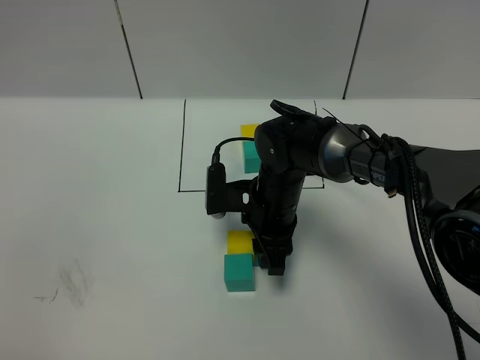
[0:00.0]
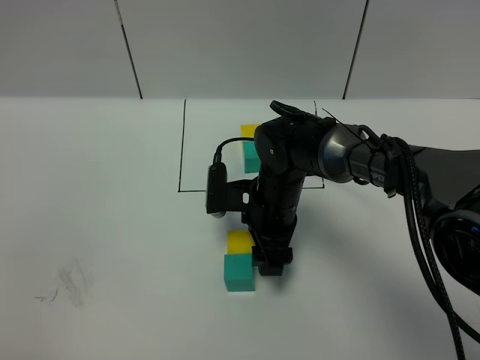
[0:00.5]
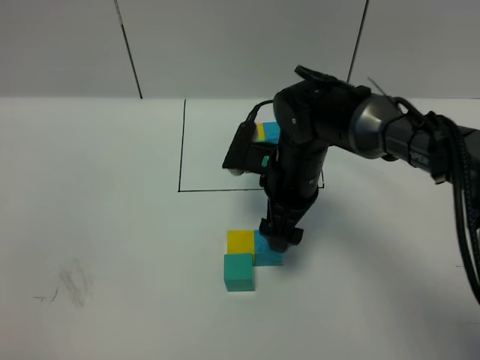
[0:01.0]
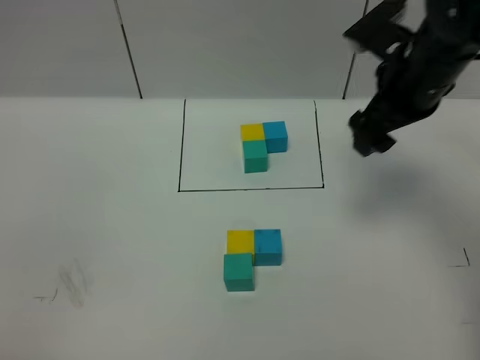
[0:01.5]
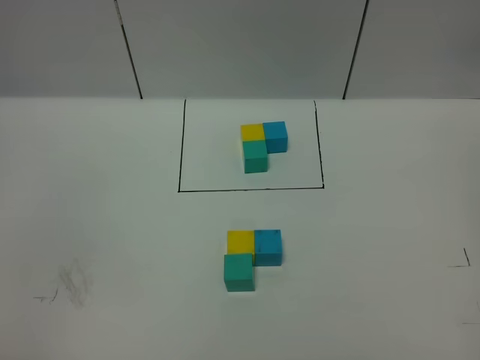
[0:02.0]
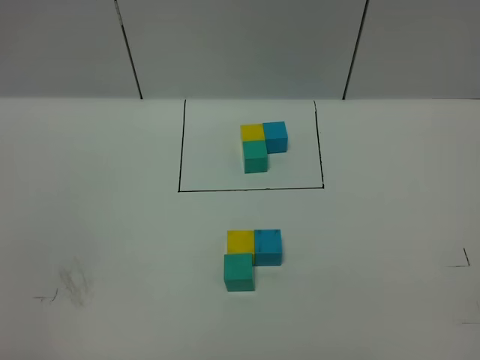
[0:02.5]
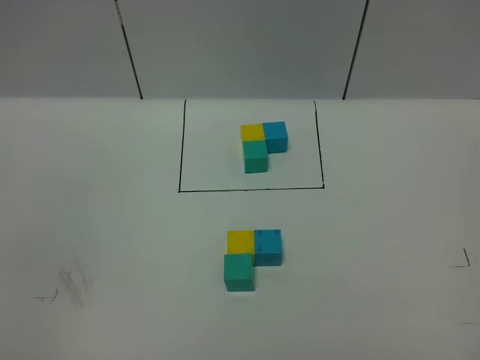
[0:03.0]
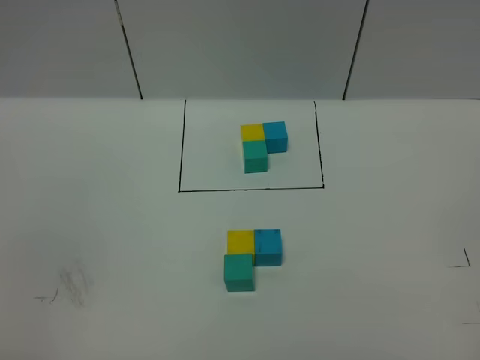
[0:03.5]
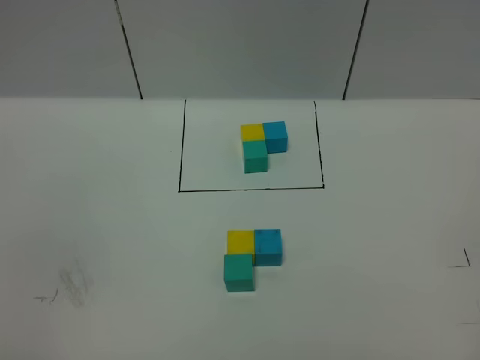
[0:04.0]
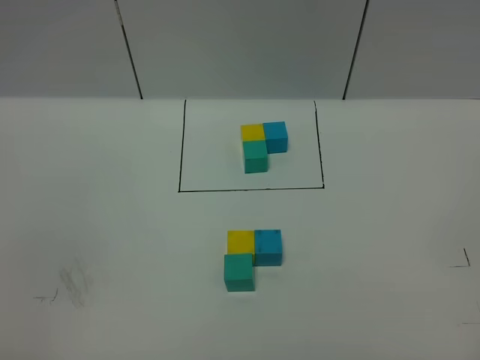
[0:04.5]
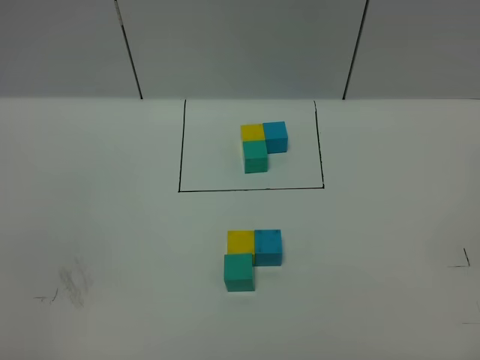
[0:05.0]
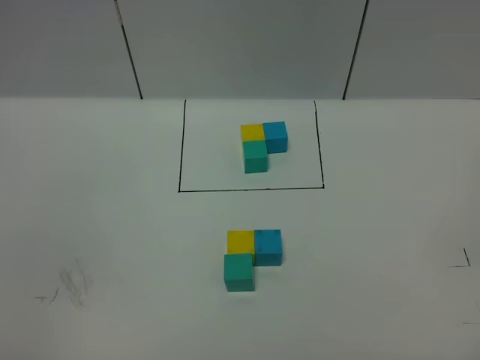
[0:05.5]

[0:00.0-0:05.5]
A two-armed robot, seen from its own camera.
Task of the whole recording: According to the building block template in front, assemble the scattered blocks together.
0:00.0 to 0:02.0: The right gripper shifts about 50 cm upward and to the right, and opens.

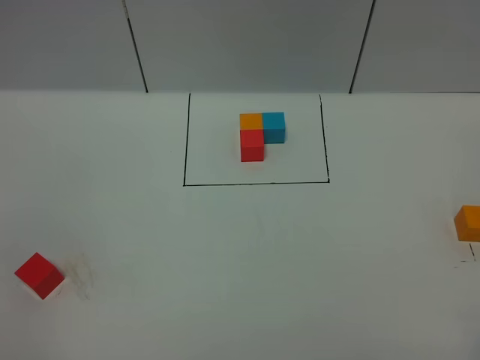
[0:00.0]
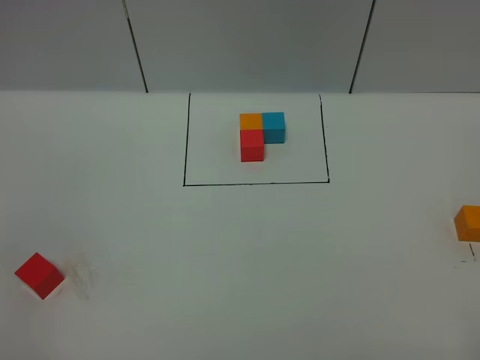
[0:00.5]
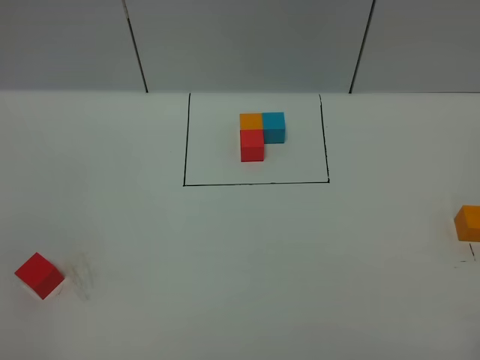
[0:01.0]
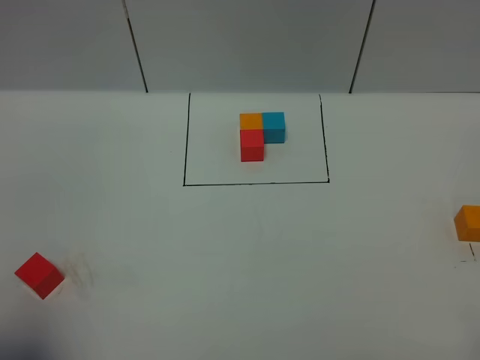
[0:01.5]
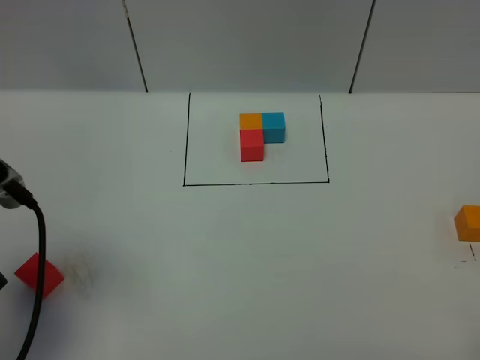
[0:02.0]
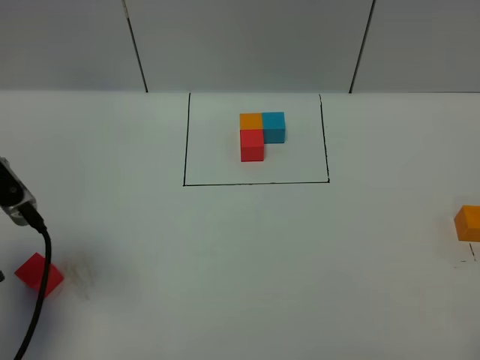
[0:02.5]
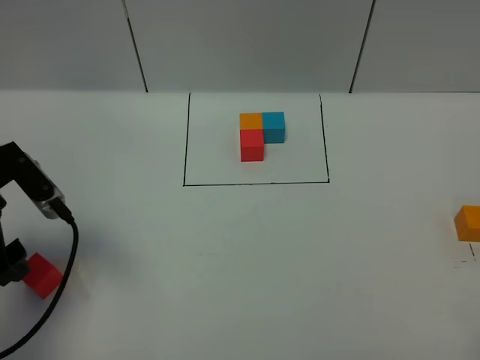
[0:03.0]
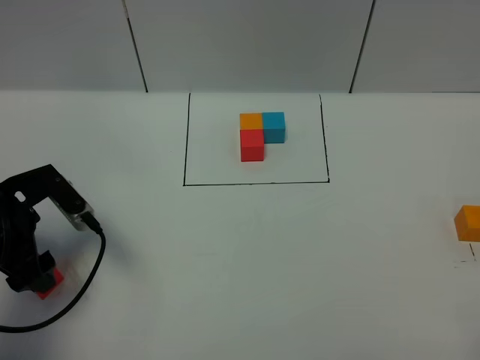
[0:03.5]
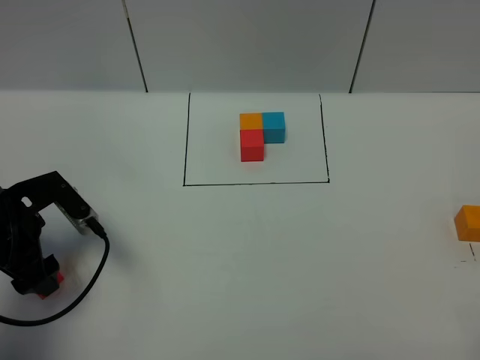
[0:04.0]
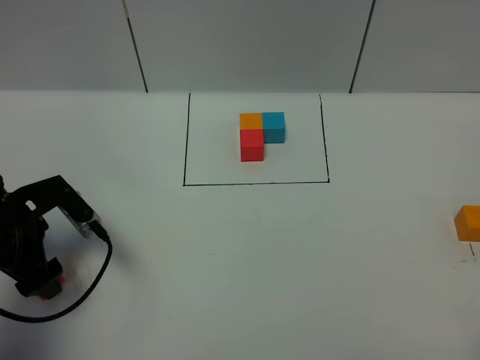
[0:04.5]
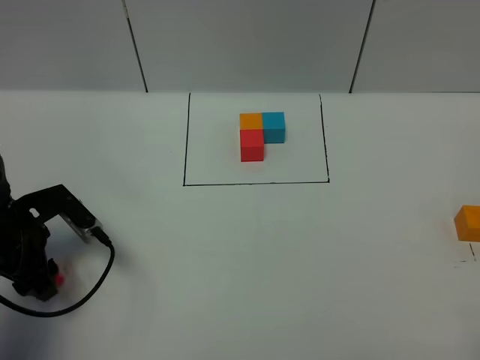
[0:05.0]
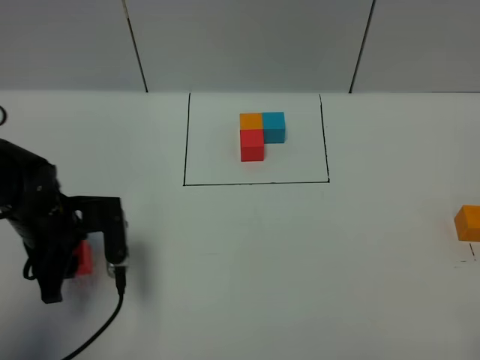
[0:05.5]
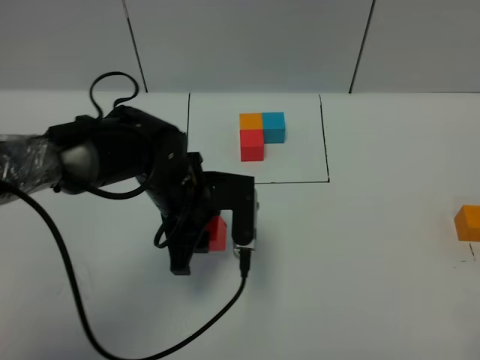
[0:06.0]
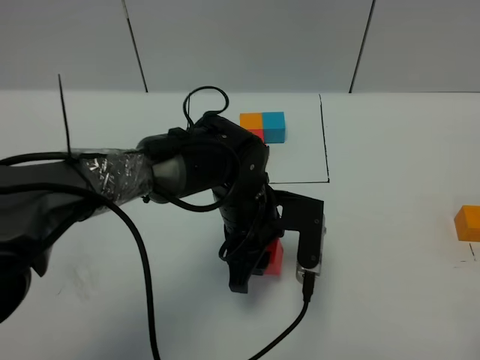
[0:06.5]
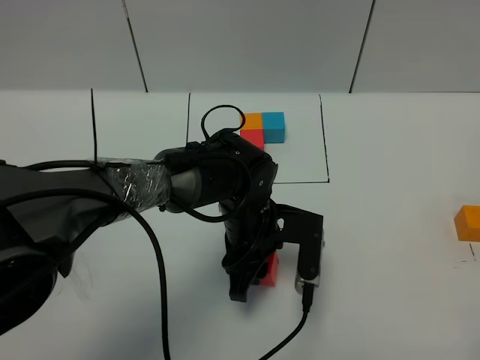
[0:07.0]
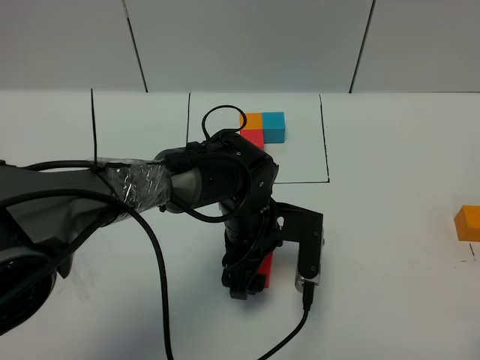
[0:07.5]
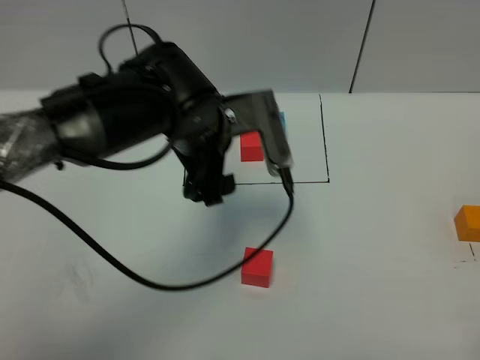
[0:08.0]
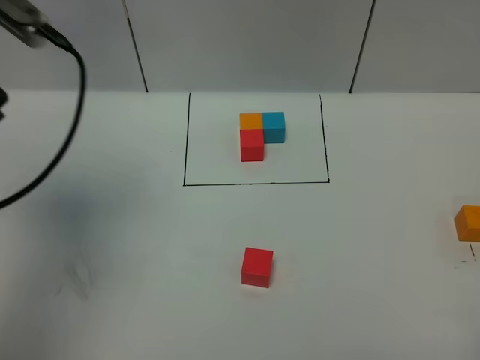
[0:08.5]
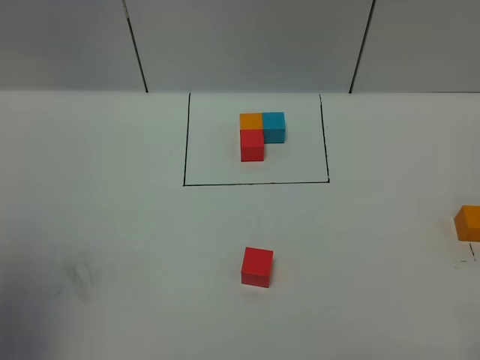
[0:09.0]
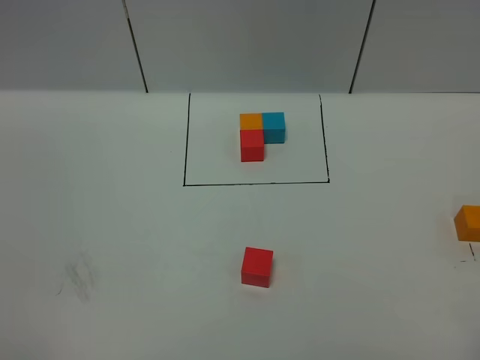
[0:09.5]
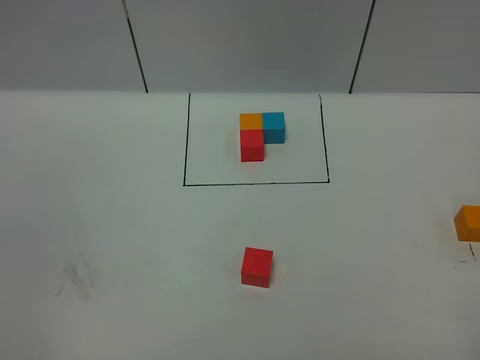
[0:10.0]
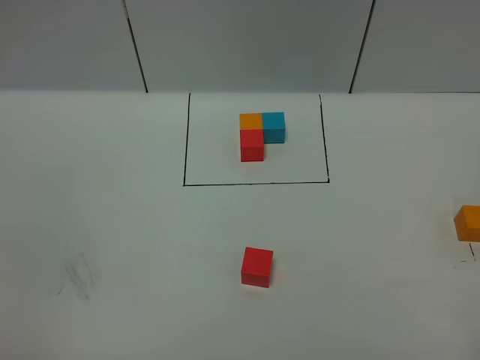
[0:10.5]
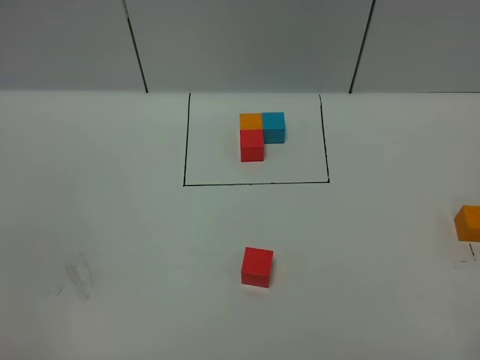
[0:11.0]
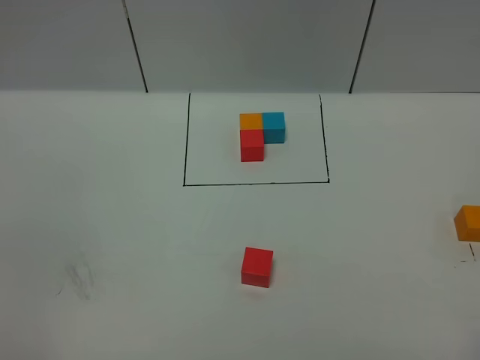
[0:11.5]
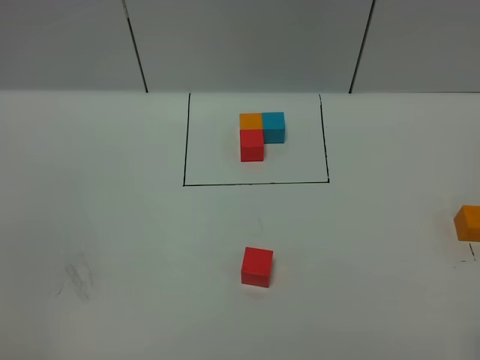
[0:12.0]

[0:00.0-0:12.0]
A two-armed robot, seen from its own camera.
Task of the whole recording: According to the building block template in front, assemble the scattered blocks together.
Step, 0:01.5 to 0:07.5: Put the red cube in the center of the table.
0:00.0 to 0:02.0: The left gripper shifts approximately 20 cm forward.
0:02.0 to 0:04.0: The left gripper goes approximately 15 cm downward and forward.
0:04.0 to 0:06.0: The left gripper moves to the right, about 20 cm, and closes its fingers.
0:06.0 to 0:08.0: The left gripper heads upward, covering about 10 cm, and opens up.
0:08.0 to 0:10.0: The left gripper heads backward and to the left, covering roughly 40 cm.

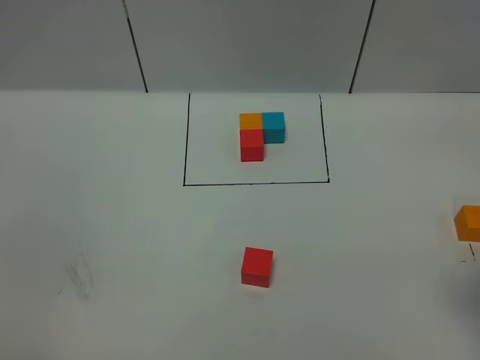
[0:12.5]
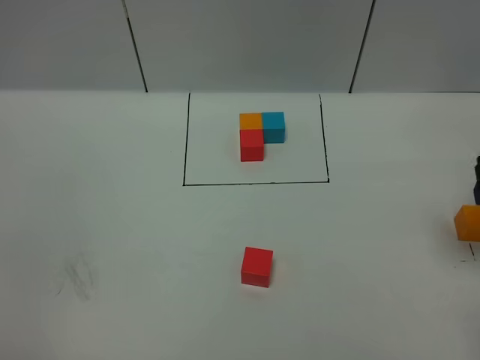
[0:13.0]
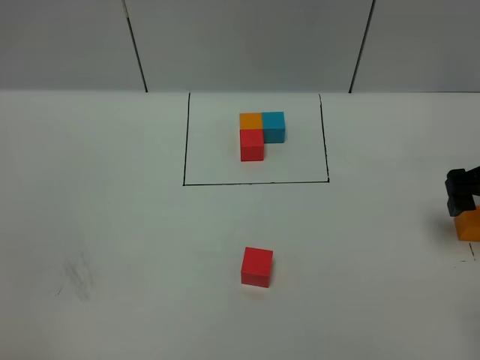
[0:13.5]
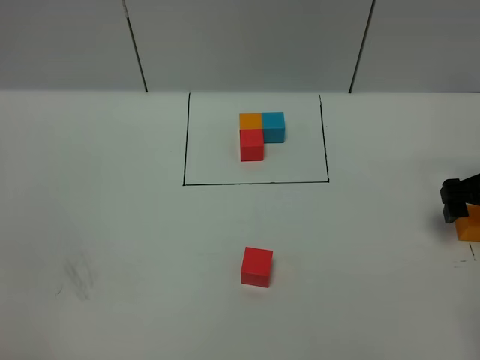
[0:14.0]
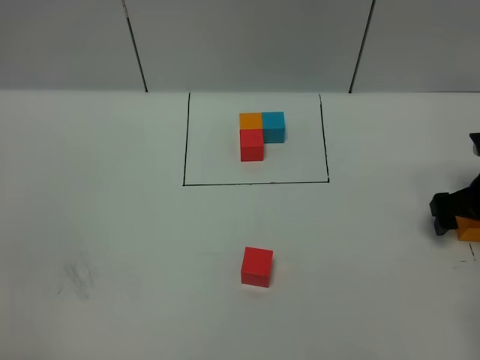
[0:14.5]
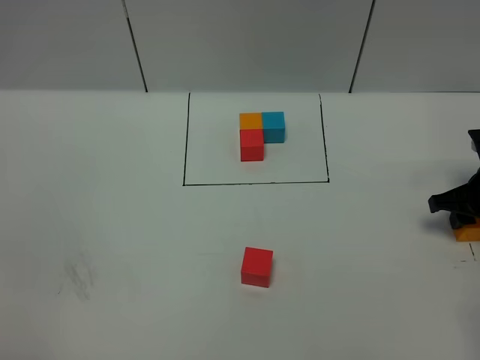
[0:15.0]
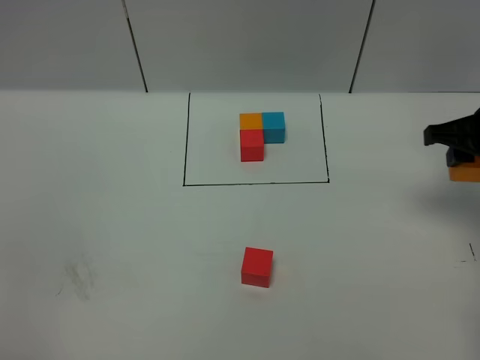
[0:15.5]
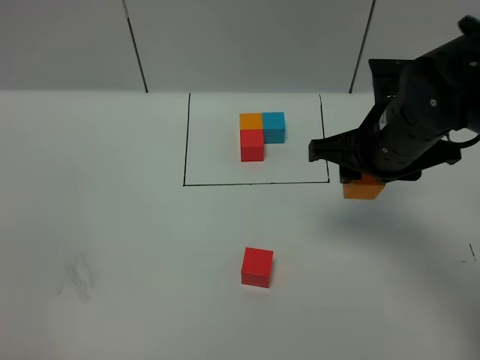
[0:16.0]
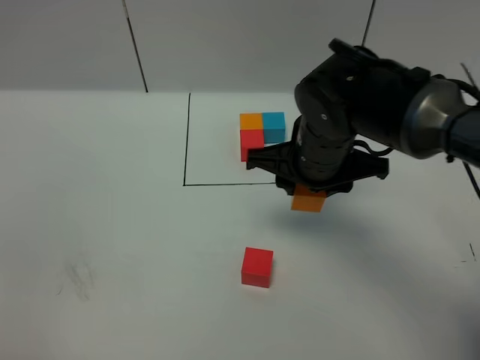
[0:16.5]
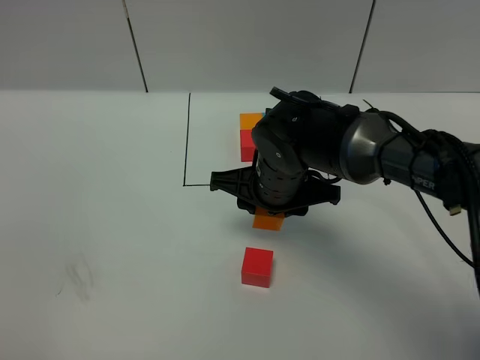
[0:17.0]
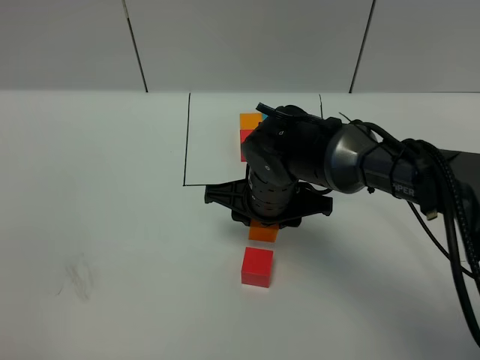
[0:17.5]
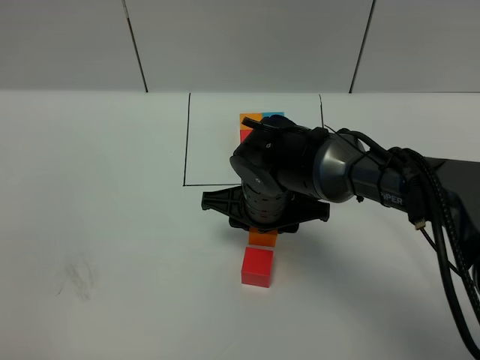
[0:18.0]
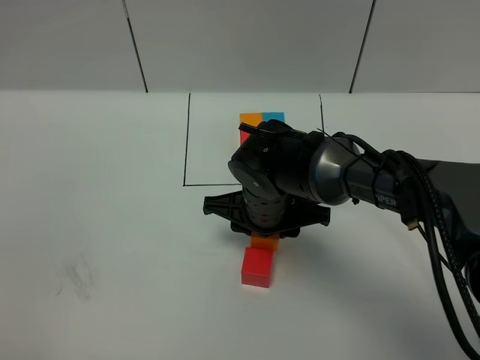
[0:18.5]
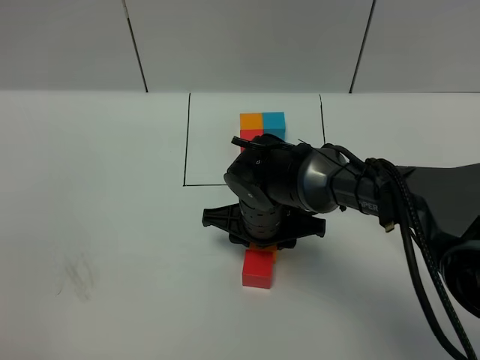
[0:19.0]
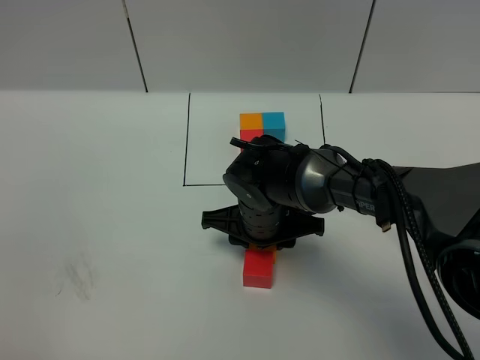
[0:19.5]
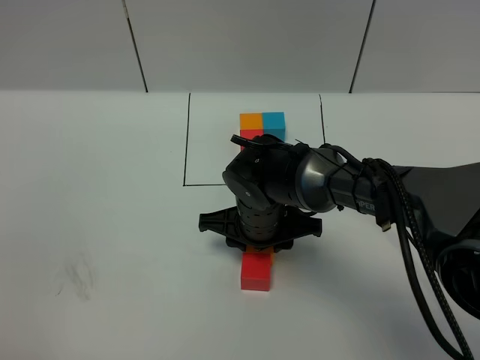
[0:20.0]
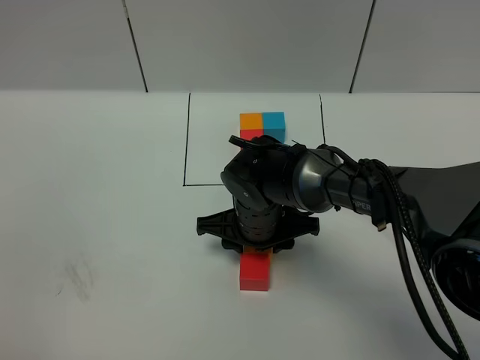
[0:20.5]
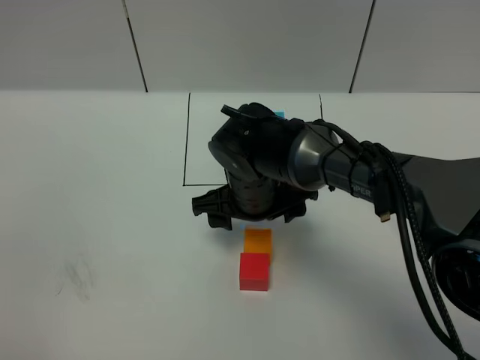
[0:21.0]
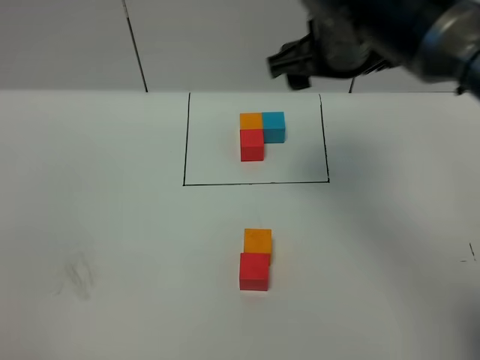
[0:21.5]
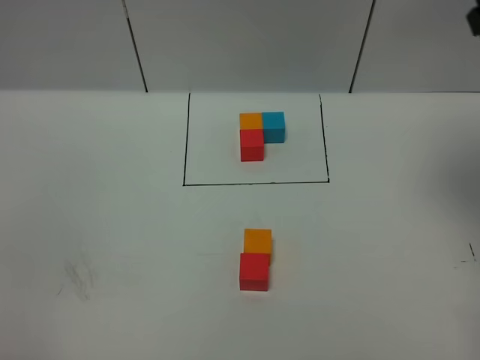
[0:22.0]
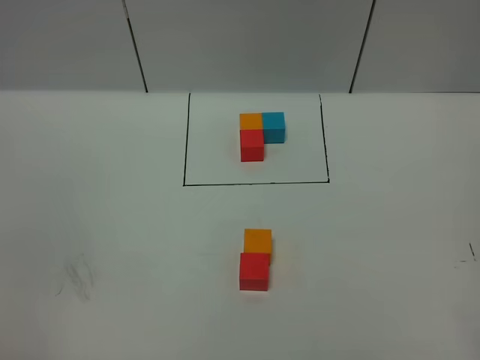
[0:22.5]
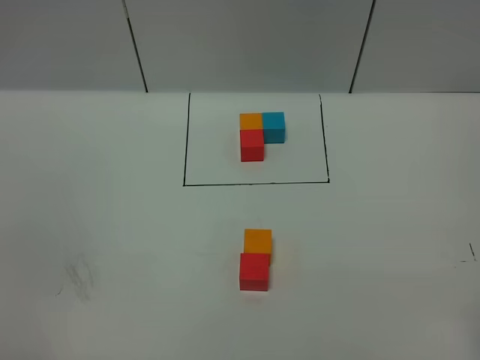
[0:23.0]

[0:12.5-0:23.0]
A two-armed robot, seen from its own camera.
Task of the whole recording: According to the building block template in front, assemble the scattered blocks together.
Step, 0:12.5 to 0:20.5: Put the orange cube on the behind of the red cube.
0:12.5 to 0:14.5: The right gripper shifts some 25 cm downward and forward.
0:14.5 to 0:16.5: The right gripper shifts roughly 25 cm to the left, and closes its fingers.
0:16.5 to 0:19.0: The right gripper is displaced downward and to the left by some 10 cm.
0:19.0 to 0:21.0: The right gripper opens its fingers.
0:21.0 to 0:23.0: The right gripper heads to the right, backward and upward, covering roughly 40 cm.
